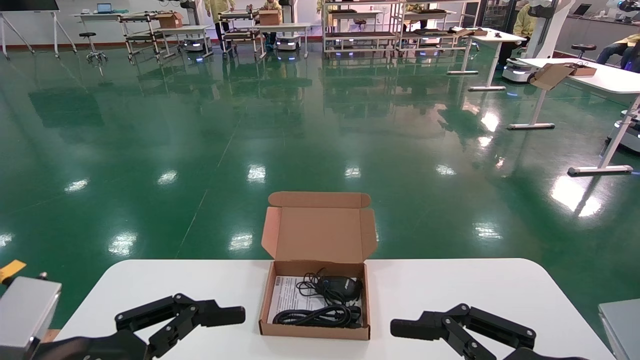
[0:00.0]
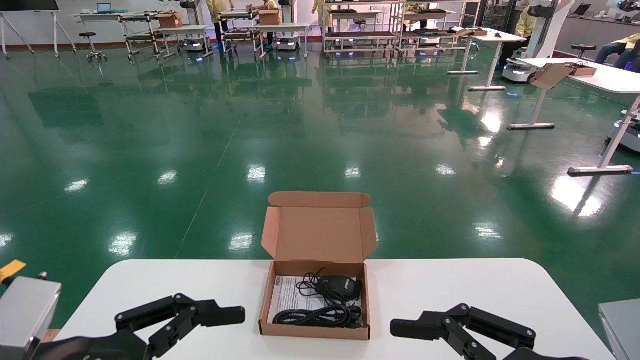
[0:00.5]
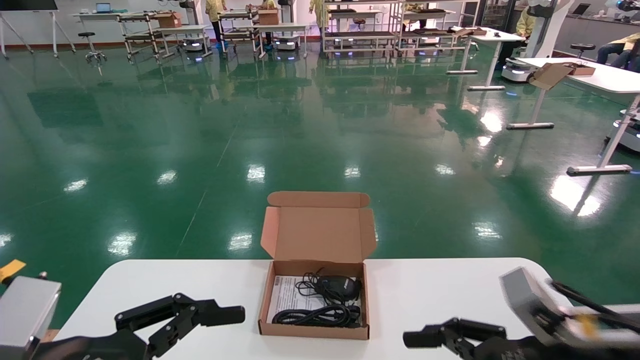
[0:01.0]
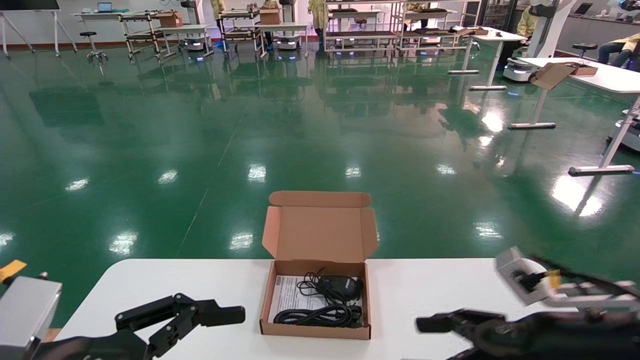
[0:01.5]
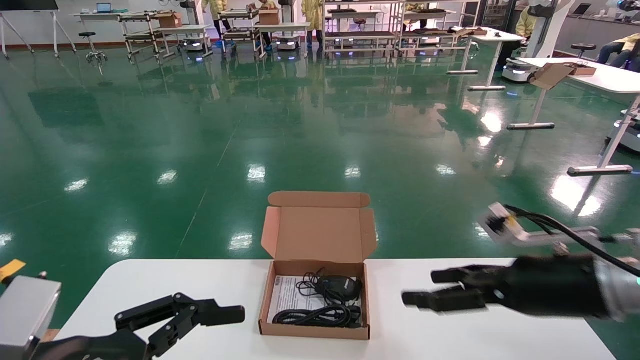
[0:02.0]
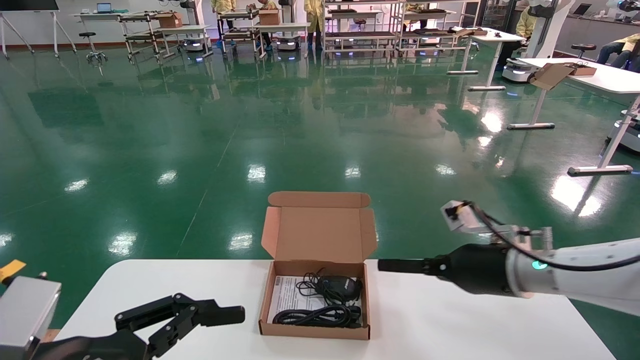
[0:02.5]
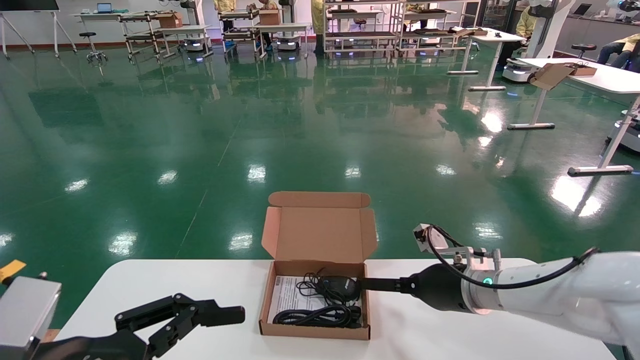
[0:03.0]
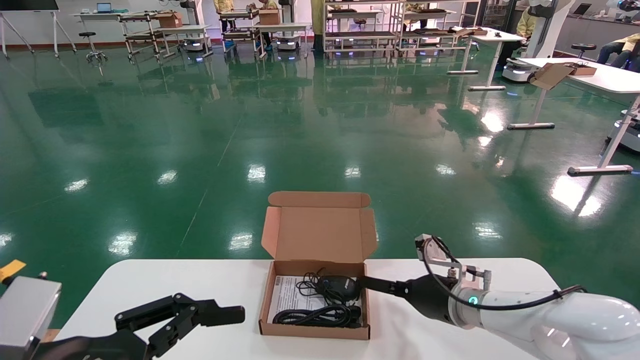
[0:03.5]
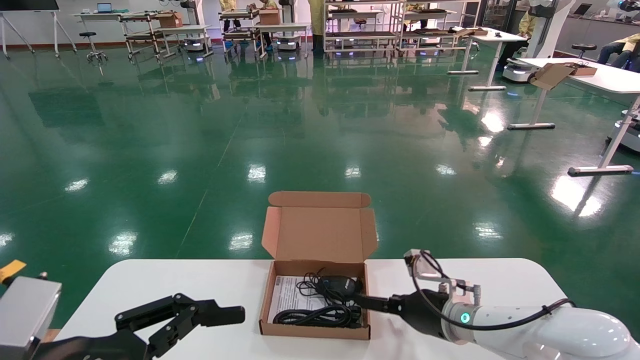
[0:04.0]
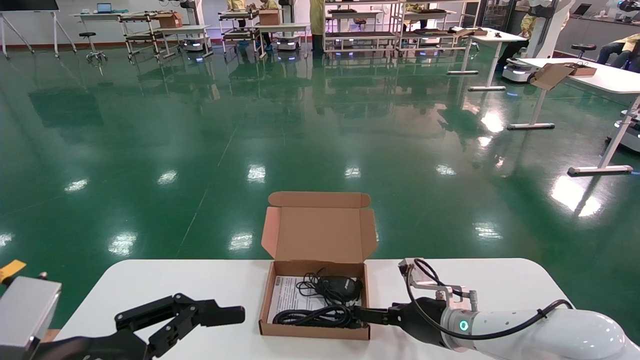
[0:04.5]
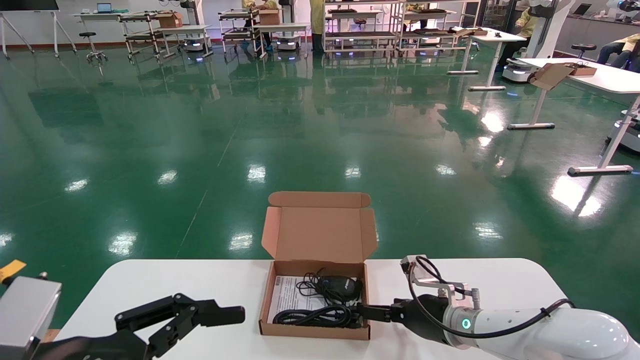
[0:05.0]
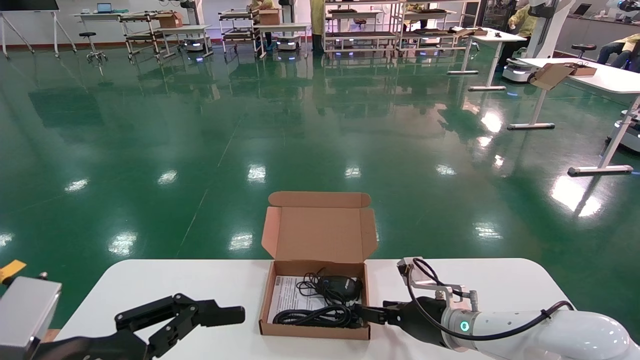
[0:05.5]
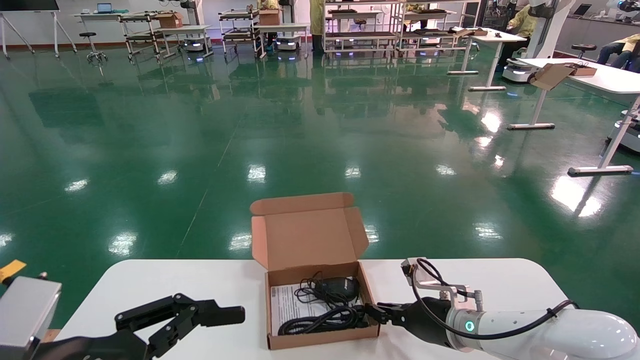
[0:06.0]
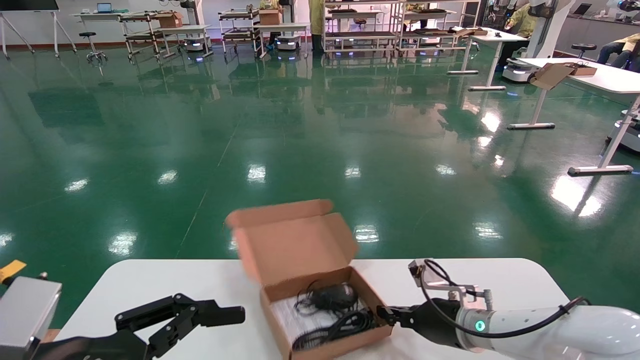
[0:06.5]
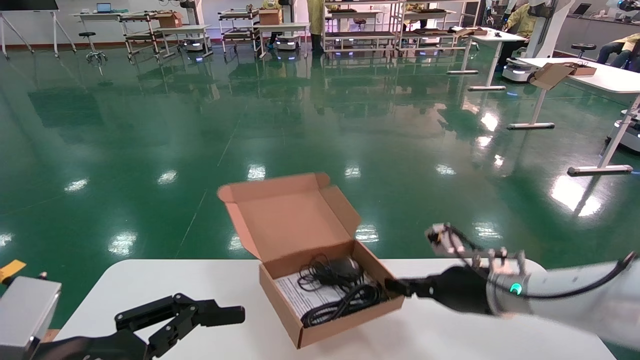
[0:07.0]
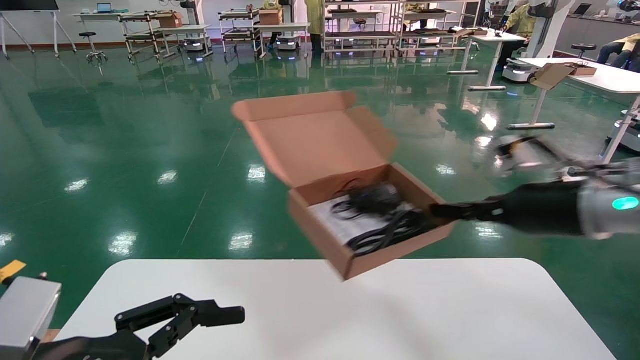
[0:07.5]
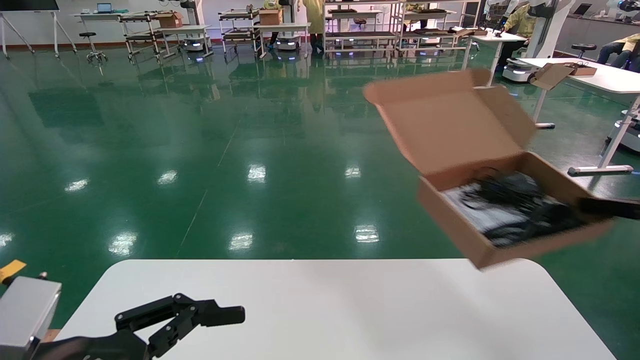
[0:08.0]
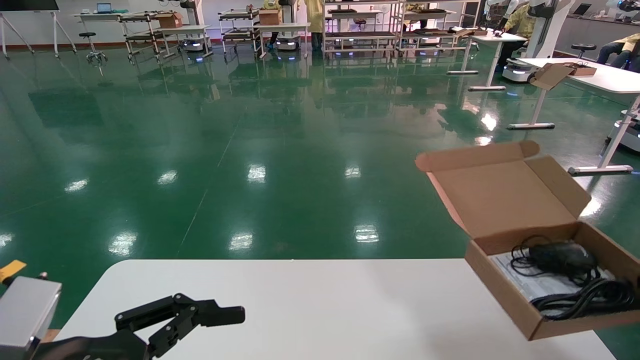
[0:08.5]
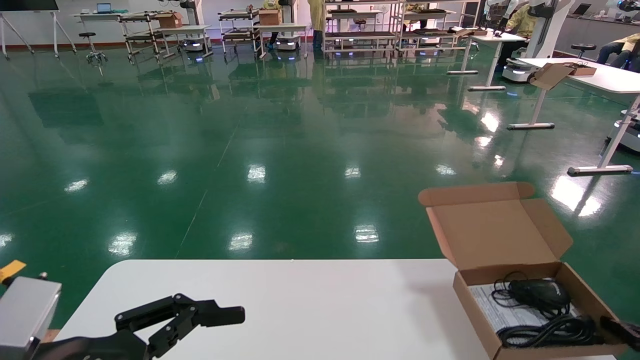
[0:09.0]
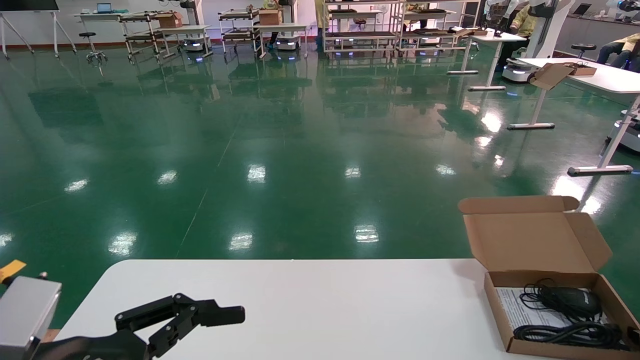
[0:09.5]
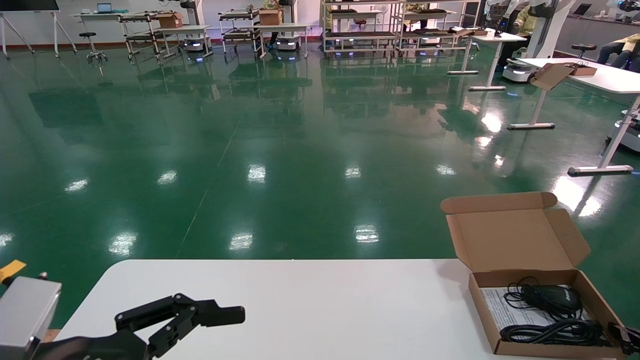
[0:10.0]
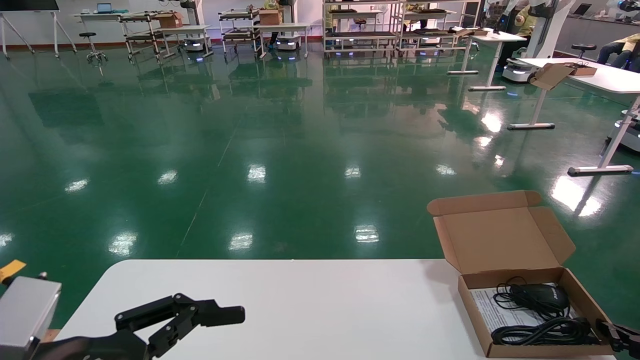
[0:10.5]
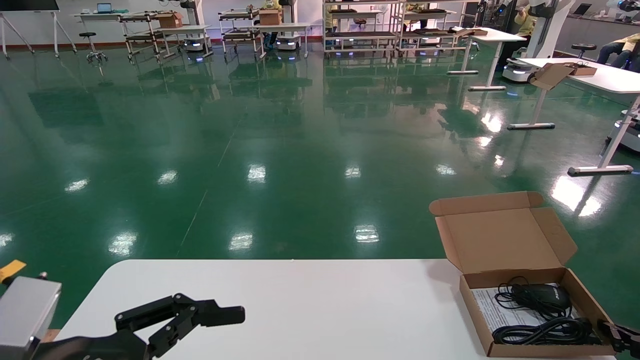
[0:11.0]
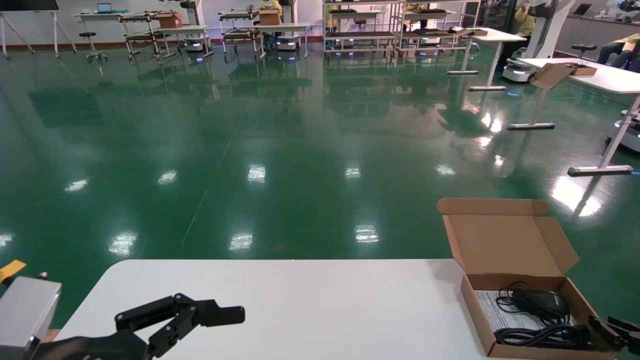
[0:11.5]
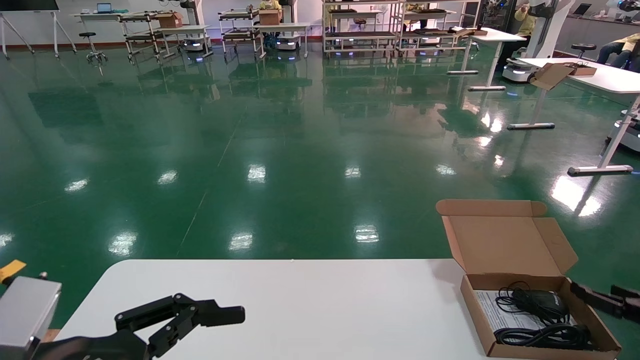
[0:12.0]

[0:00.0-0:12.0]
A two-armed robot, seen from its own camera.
Task of the whole recording: move the position of the storage box with accessories on the table.
Step, 0:01.0 to 0:06.5: Grab and pick up the open mouse box from the accessory packaging area.
Step, 0:07.0 to 0:11.5: Place the open mouse box onto the operation table.
0:00.0 to 0:02.0: The right gripper heads forward, covering some 15 cm.
0:02.0 to 0:04.0: The right gripper is displaced forward, downward and to the left by about 20 cm.
0:04.0 to 0:06.0: The right gripper closes.
0:06.0 to 0:08.0: The right gripper moves to the right, upward and backward, roughly 40 cm.
0:08.0 to 0:10.0: The right gripper goes some 25 cm downward.
0:10.0 to 0:12.0: The right gripper moves upward, approximately 5 cm, and opens up.

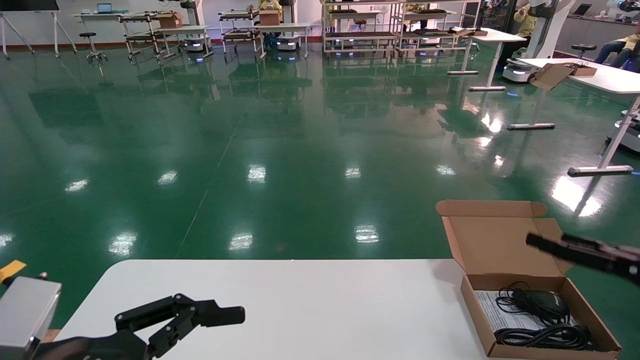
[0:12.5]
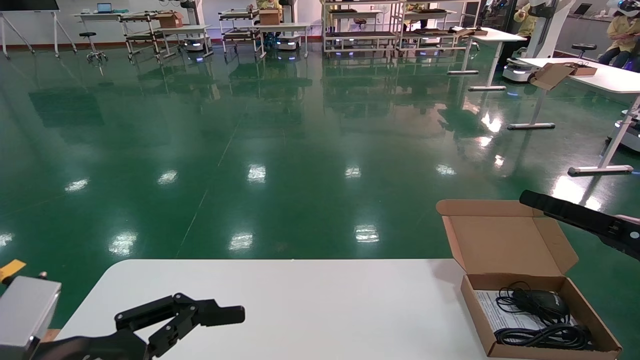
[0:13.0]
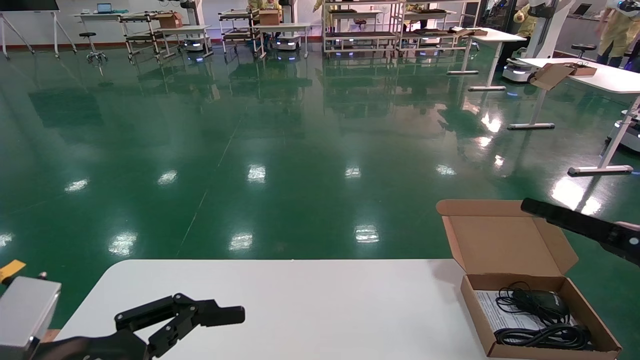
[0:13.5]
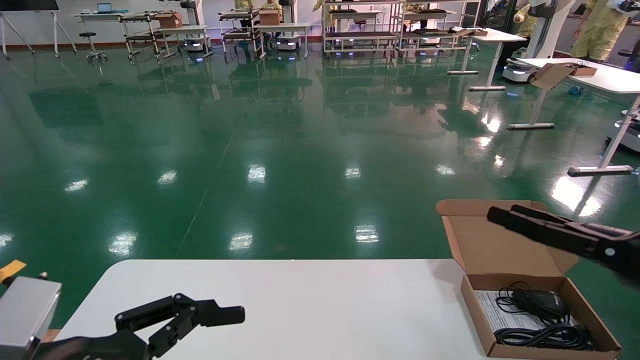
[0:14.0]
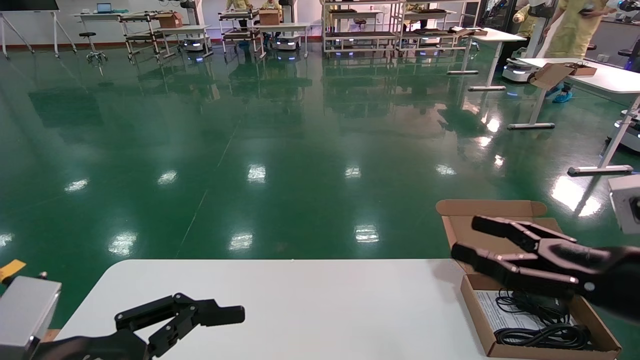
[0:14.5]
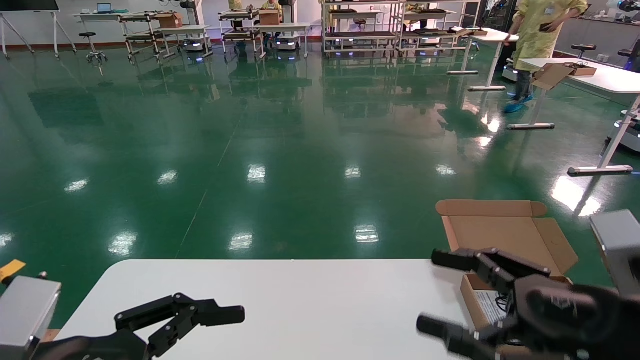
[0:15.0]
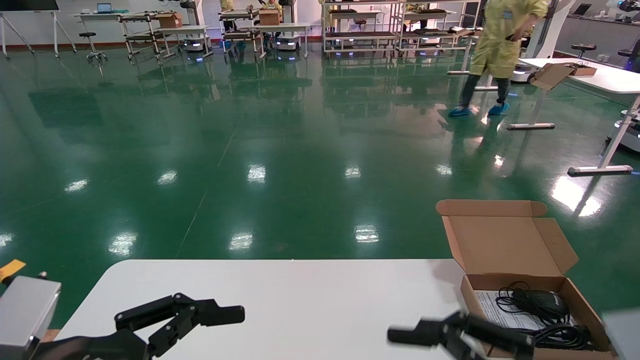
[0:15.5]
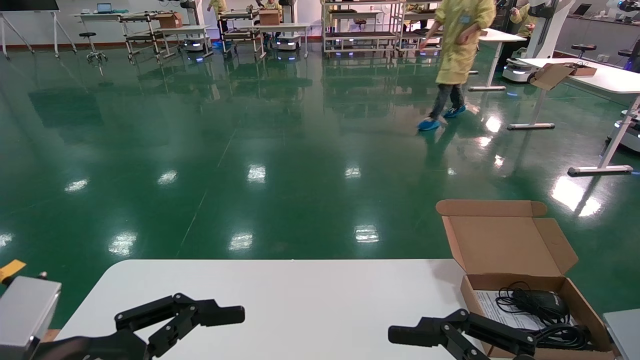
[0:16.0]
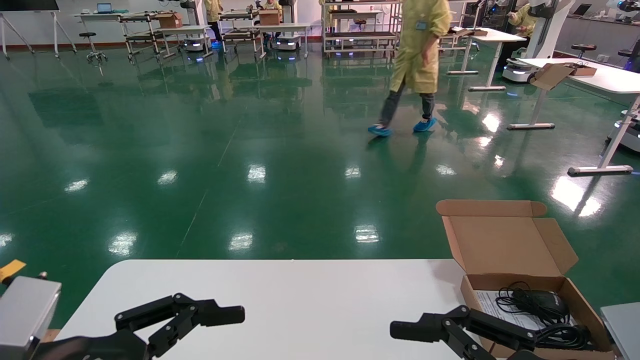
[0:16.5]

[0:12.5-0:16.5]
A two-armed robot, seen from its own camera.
Task of the whole recording: move the position of the storage box with accessories on the table.
0:12.5 to 0:14.5: The right gripper travels to the left and backward by roughly 15 cm.
0:14.5 to 0:16.5: The right gripper is displaced backward and to the left by about 15 cm.
